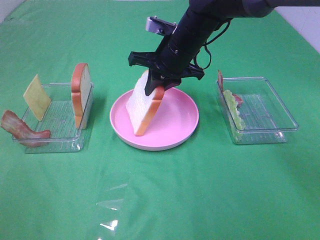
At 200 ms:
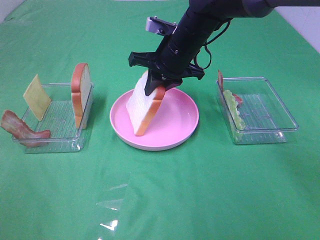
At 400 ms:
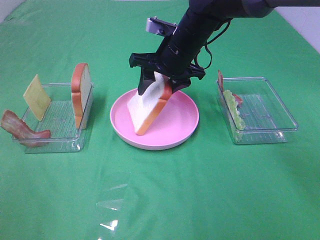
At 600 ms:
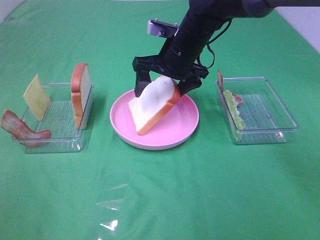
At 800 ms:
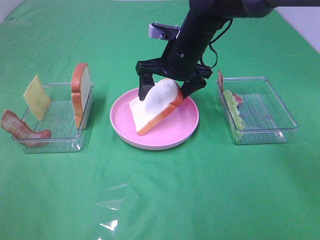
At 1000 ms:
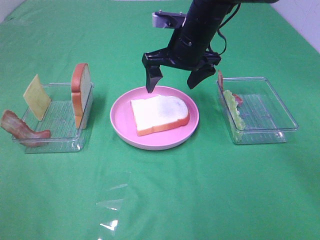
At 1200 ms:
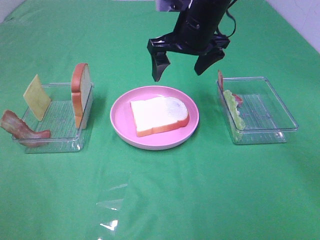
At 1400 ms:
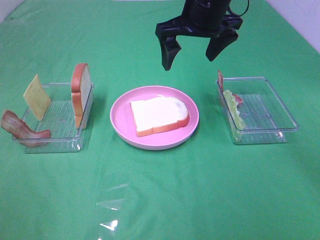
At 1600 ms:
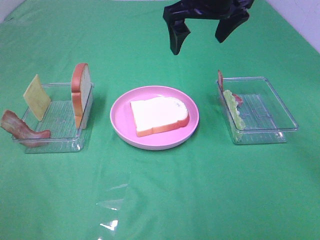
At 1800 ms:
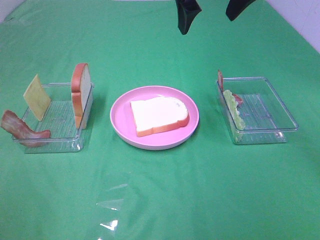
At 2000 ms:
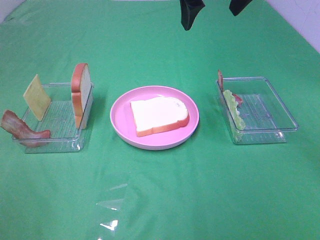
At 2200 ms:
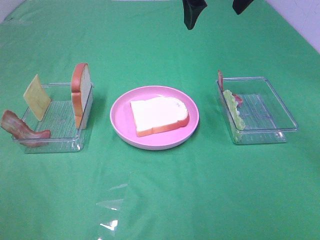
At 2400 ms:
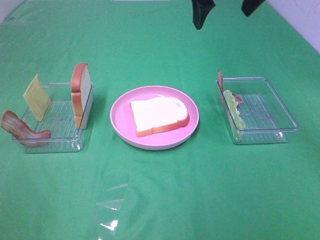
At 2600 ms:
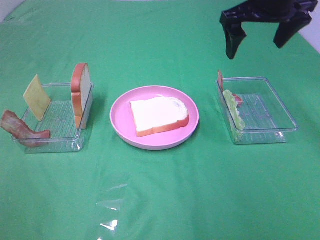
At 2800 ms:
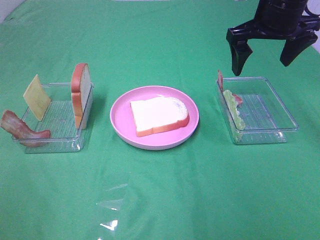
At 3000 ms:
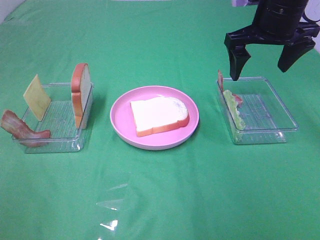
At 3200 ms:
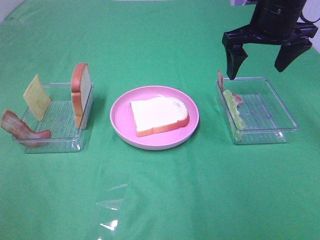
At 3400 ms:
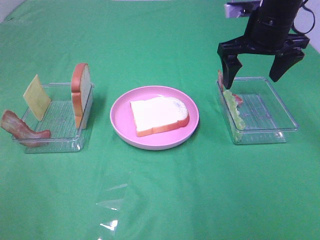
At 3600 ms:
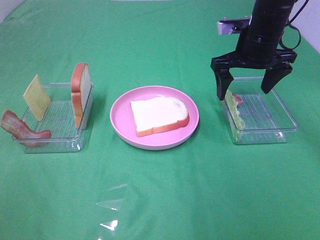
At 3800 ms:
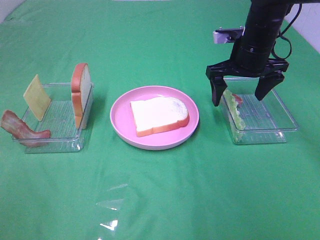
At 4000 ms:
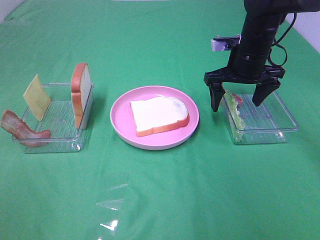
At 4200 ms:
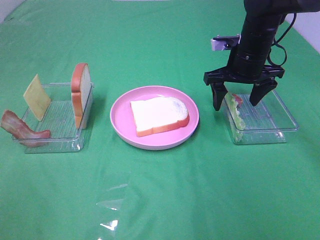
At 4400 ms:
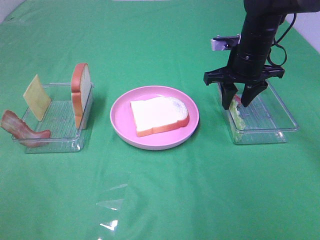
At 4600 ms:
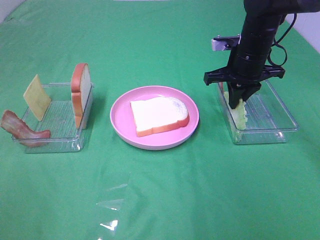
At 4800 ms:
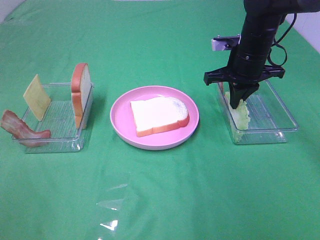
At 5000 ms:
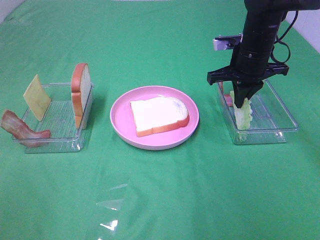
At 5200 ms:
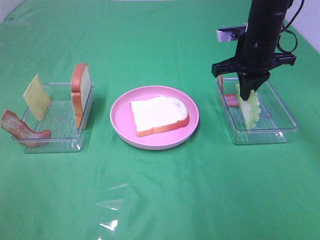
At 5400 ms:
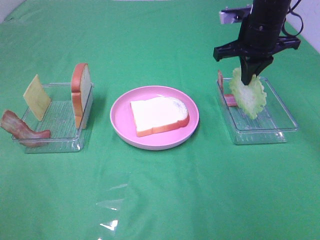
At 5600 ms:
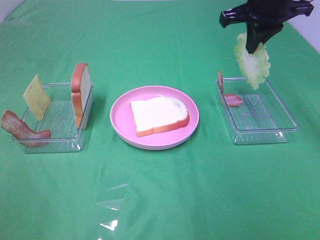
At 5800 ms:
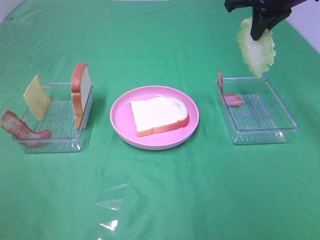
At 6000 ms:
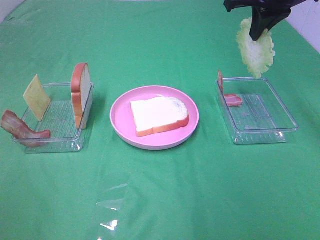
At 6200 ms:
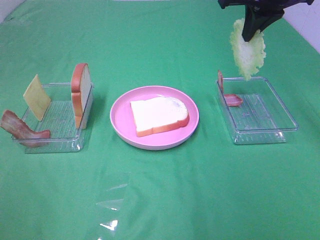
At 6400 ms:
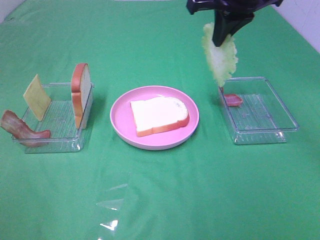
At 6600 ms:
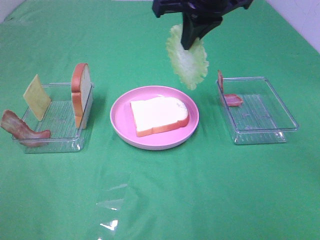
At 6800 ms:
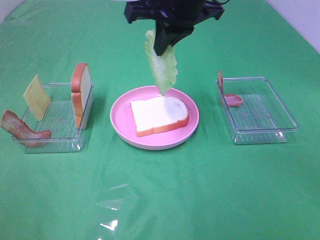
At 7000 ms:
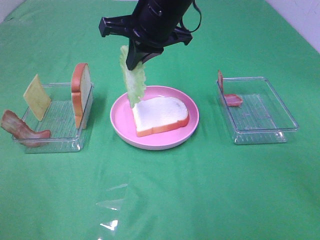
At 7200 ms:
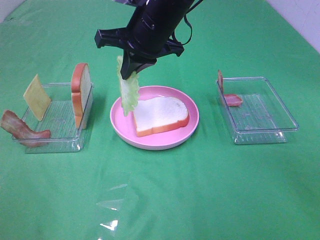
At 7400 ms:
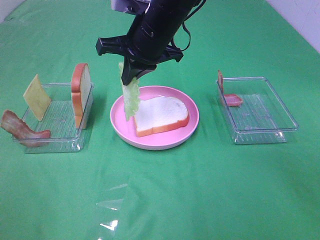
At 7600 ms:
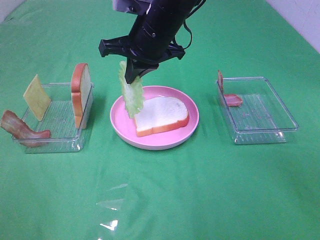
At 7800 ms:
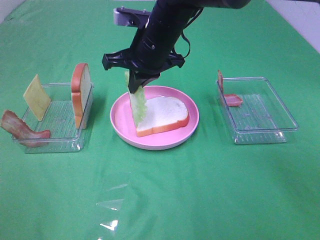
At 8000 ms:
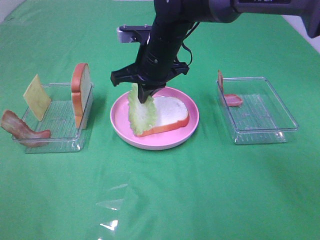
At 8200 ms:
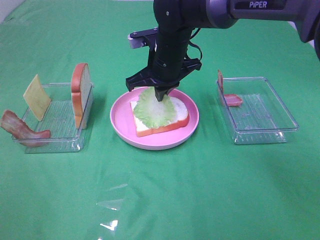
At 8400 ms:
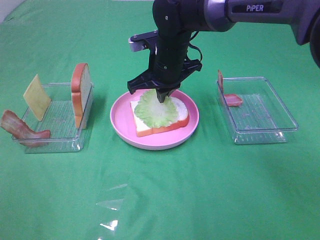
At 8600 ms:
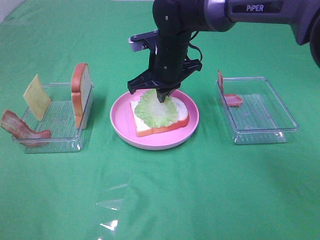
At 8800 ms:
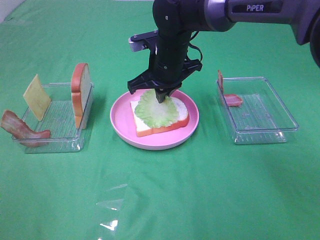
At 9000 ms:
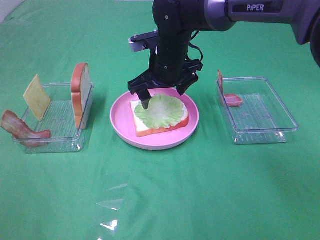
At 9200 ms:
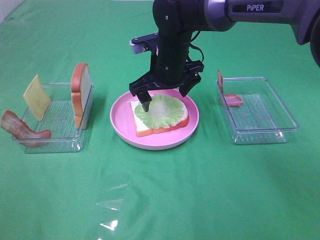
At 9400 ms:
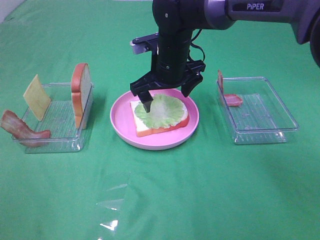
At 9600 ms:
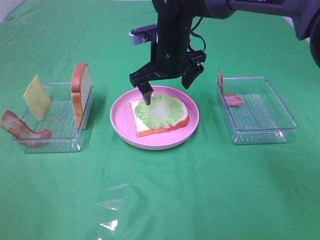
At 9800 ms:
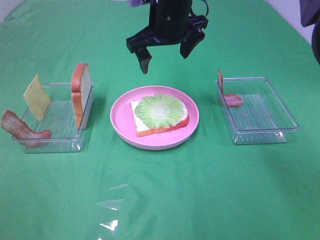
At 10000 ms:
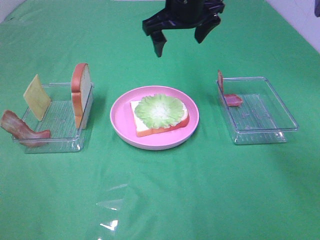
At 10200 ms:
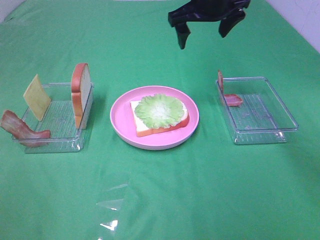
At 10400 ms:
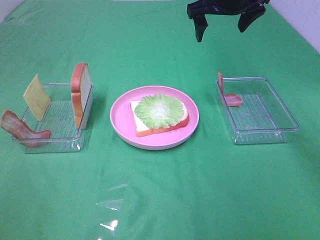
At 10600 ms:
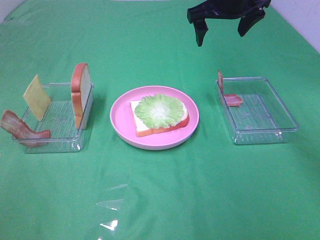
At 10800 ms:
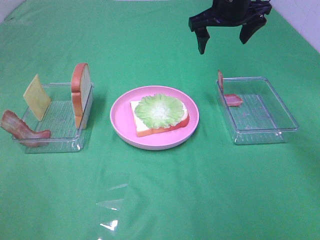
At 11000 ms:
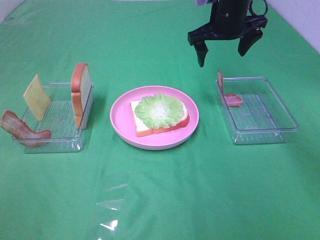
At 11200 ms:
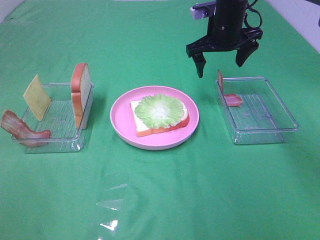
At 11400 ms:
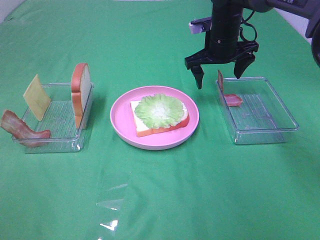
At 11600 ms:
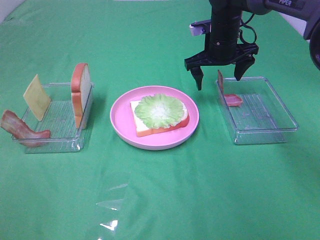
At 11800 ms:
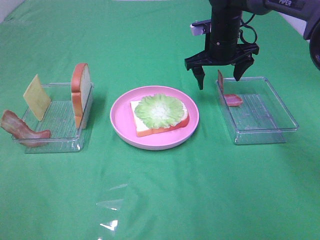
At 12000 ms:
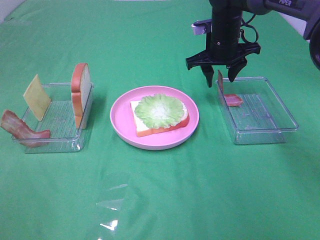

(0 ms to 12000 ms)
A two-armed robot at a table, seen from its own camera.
Task of the whole recording: Make sandwiches.
Step, 1200 ms - 4600 ms: Right hand:grab the lettuce slice.
Step, 4800 ms - 9000 ms: Right hand:place the lettuce slice on the bread slice.
0 ms - 1600 ms: The right gripper shifts about 15 cm upward, and opens.
1600 ms - 3000 ms: The right gripper is displaced to the right by approximately 10 cm.
3000 ms - 4400 ms: The right gripper travels downward by some 10 cm, and closes.
4400 ms - 6000 ms: The right gripper is displaced upward by approximately 15 cm, and closes.
6000 ms - 7600 ms: The right gripper moves to the left and downward, about 20 cm.
7600 ms - 9000 ms: The right gripper travels downward by some 5 cm, and opens.
9000 ms - 10400 ms: The right gripper is displaced upward, to the right and forward by approximately 20 cm.
10400 ms - 12000 ms: The right gripper travels downward by roughly 10 cm, and closes up.

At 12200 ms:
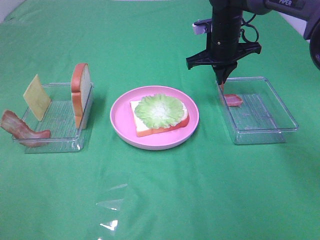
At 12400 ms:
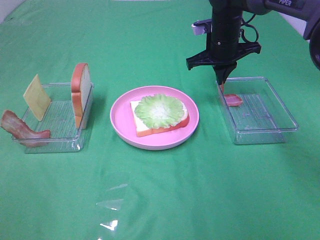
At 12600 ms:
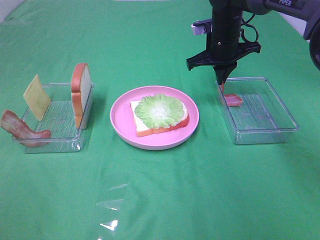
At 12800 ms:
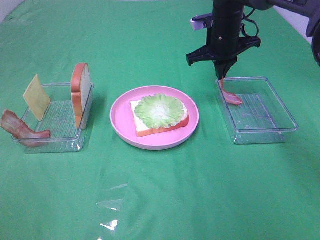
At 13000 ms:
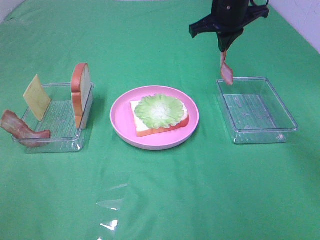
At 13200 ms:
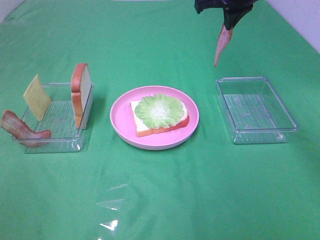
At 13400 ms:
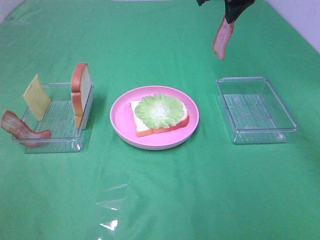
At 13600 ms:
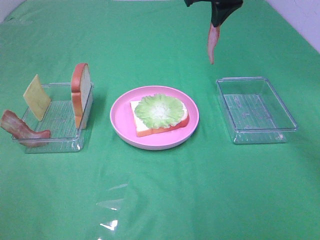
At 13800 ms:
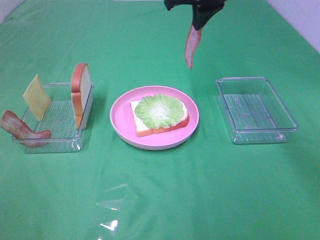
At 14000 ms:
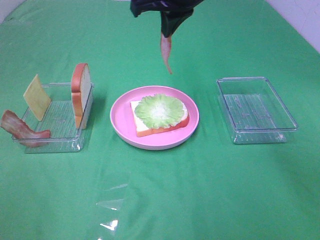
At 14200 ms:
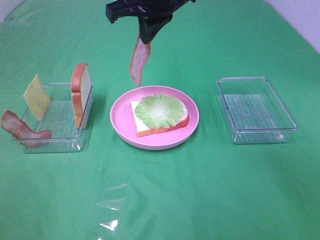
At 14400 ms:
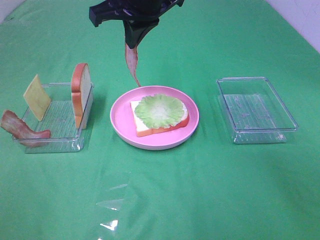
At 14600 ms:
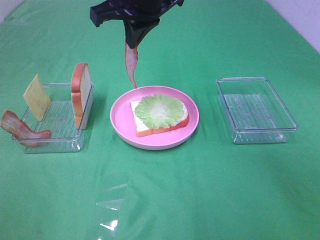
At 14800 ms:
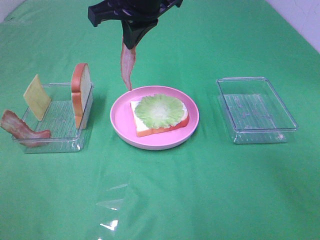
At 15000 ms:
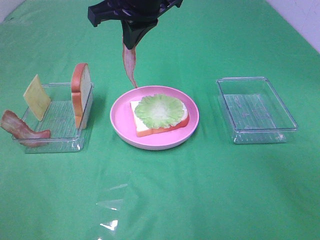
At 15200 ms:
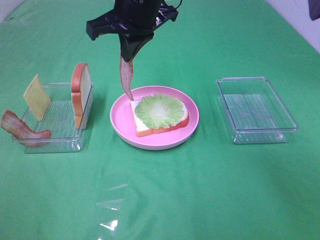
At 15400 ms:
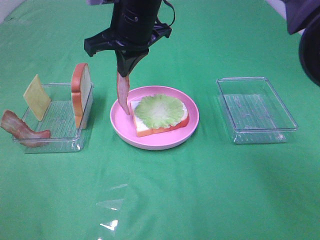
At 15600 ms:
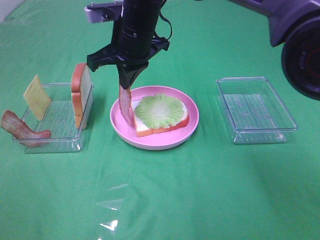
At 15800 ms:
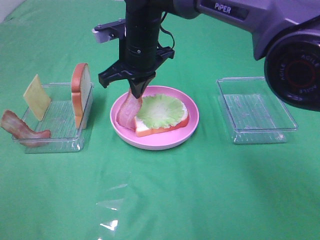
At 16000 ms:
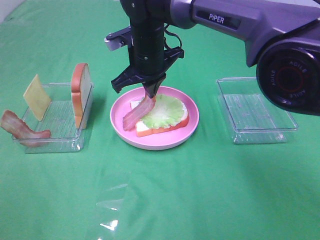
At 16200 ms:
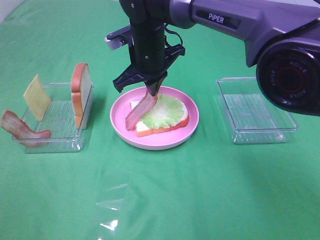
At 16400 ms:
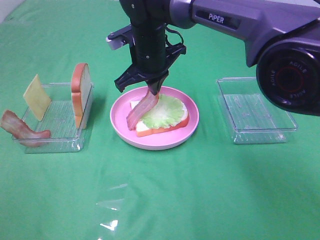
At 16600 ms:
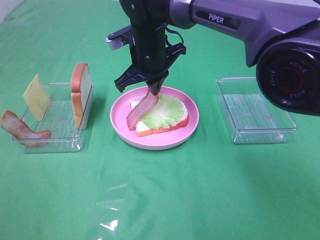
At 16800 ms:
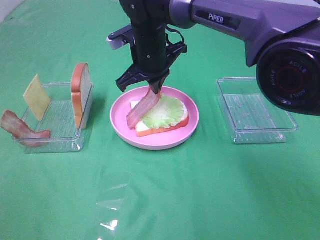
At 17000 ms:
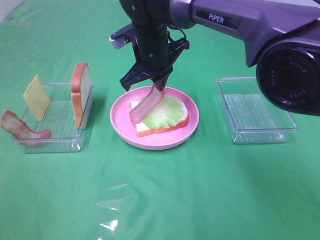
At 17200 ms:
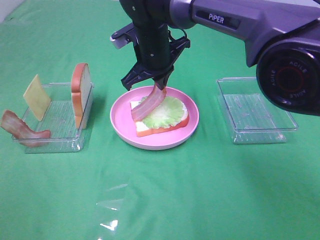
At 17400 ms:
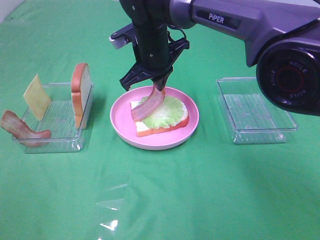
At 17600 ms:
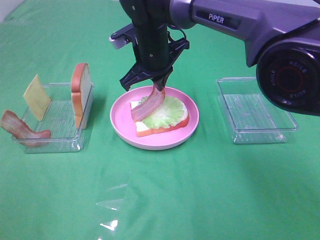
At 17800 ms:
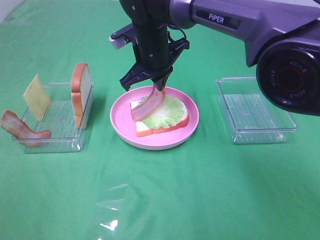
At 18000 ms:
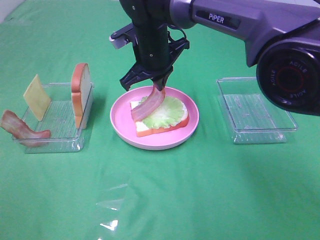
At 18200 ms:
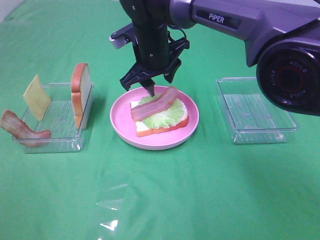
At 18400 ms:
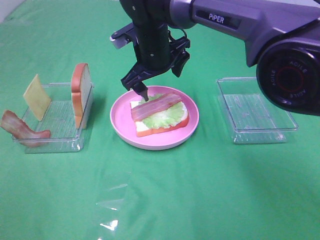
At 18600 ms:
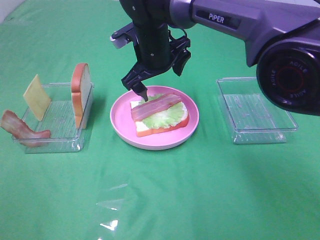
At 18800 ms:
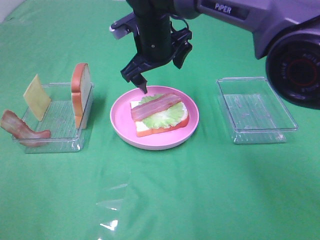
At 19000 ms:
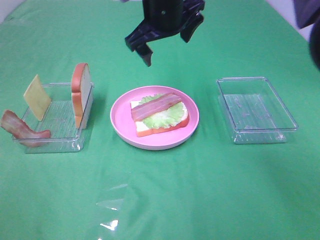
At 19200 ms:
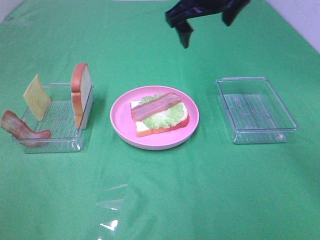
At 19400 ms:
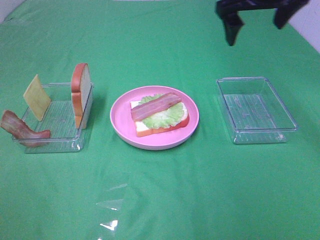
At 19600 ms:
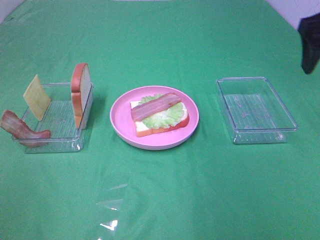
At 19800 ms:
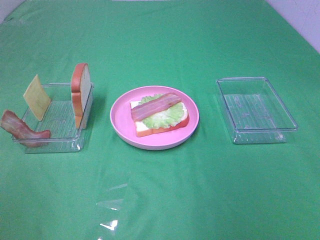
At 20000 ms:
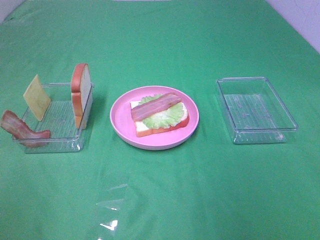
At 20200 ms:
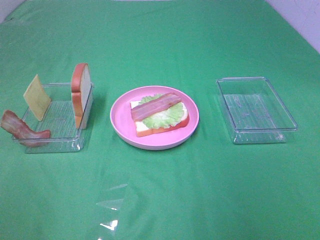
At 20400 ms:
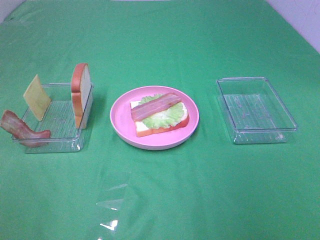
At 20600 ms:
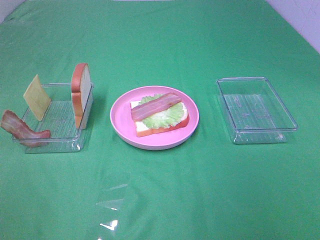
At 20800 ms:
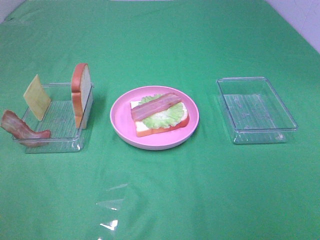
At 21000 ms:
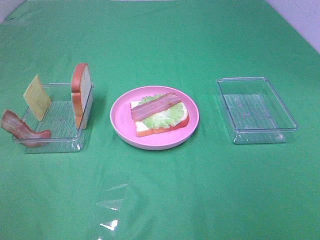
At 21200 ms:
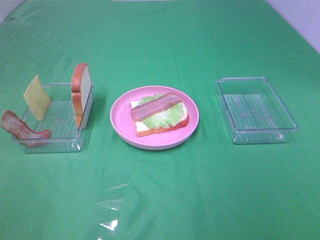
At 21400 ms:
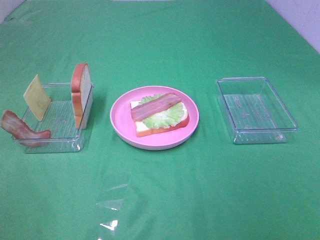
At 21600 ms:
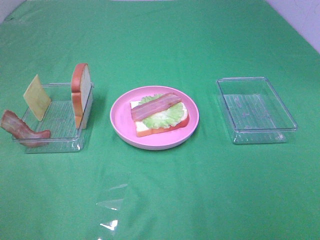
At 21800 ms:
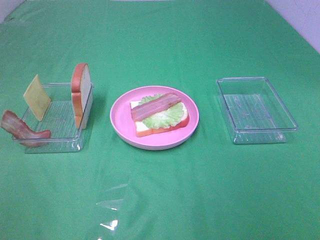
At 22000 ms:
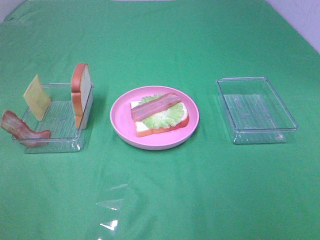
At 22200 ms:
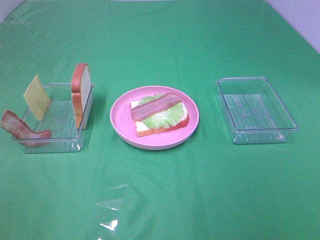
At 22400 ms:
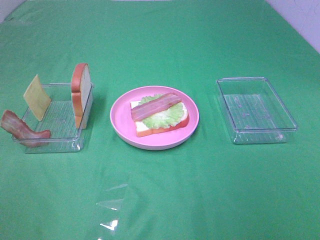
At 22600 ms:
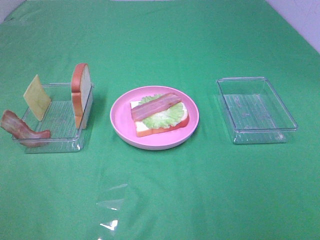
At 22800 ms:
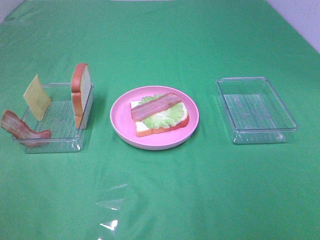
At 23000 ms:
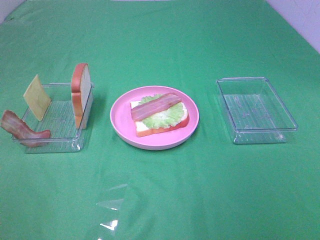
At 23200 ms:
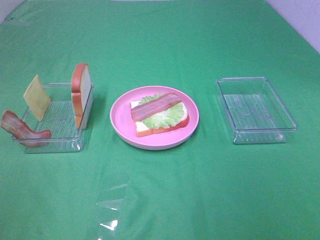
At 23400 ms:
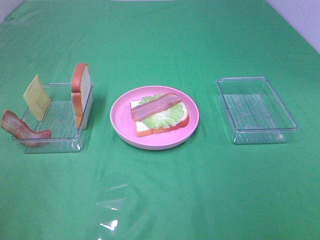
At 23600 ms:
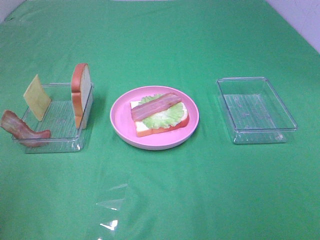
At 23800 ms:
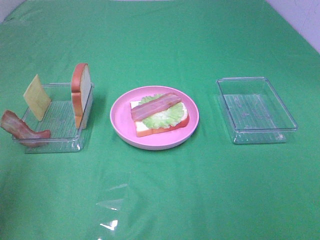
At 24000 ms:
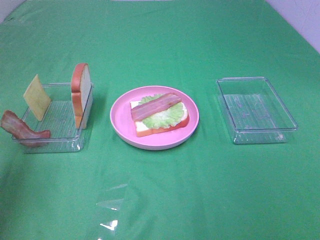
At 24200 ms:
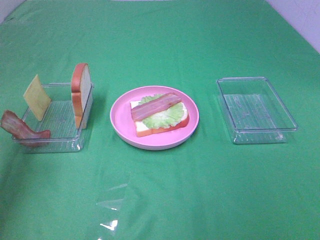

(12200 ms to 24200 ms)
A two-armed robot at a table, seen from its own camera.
Task of the whole recording: Make sandwiches.
Step, 12400 ms - 18200 ms: Right hand:place bacon on lettuce slice.
12200 ms - 13800 ms: The right gripper travels upward and to the left by about 15 cm.
13800 ms - 15200 ms: The right gripper moves to the left and backward, roughly 10 cm.
15200 ms - 16600 ms: The right gripper moves downward, about 10 cm.
16600 ms - 18200 ms: The right gripper opens up.
18200 ms - 19800 ms: The right gripper is displaced to the right, backward and upward by about 35 cm, and opens up.
21200 ms - 22600 ms: The two grippers keep their place.
22600 ms - 24200 ms: The left gripper travels forward by about 25 cm.
